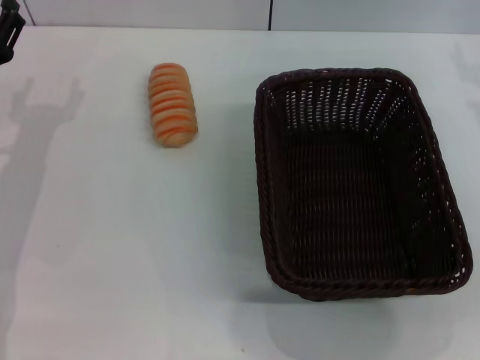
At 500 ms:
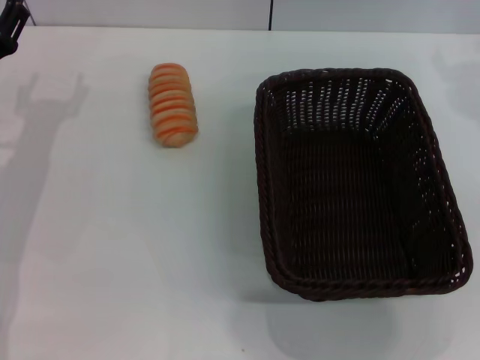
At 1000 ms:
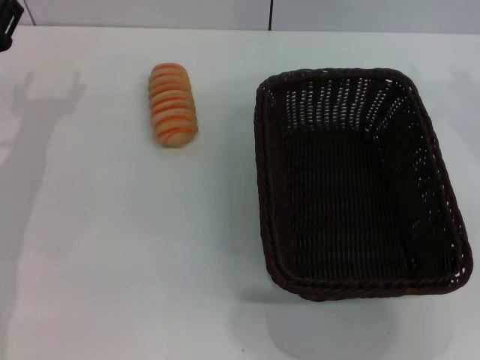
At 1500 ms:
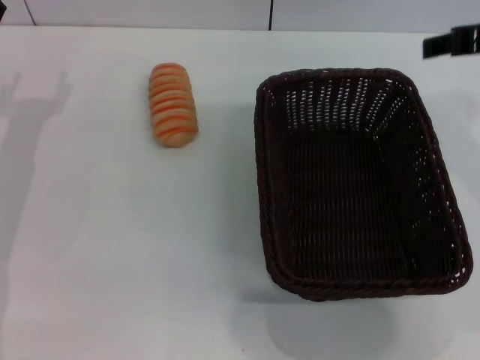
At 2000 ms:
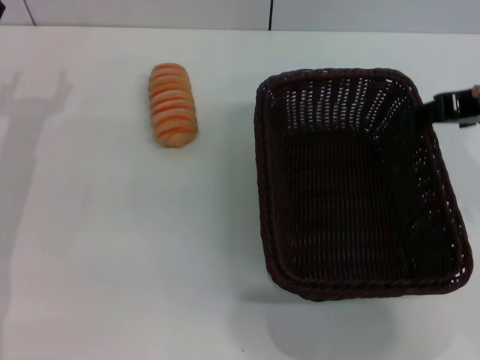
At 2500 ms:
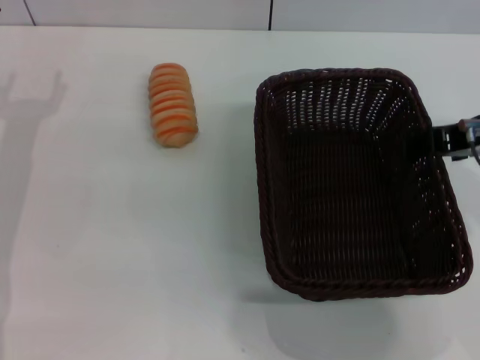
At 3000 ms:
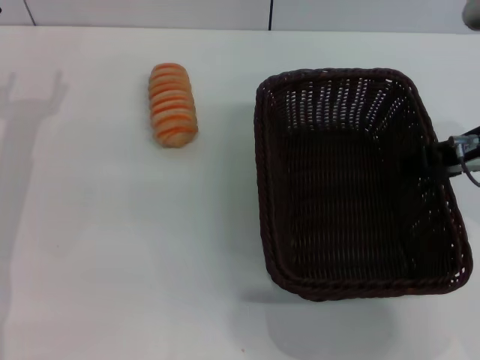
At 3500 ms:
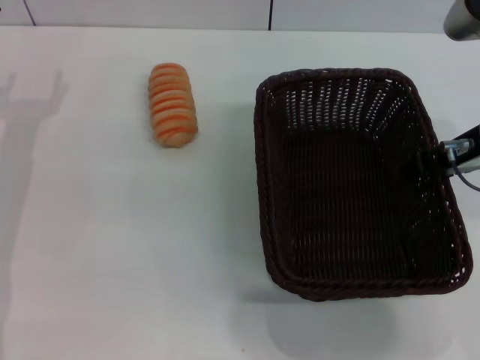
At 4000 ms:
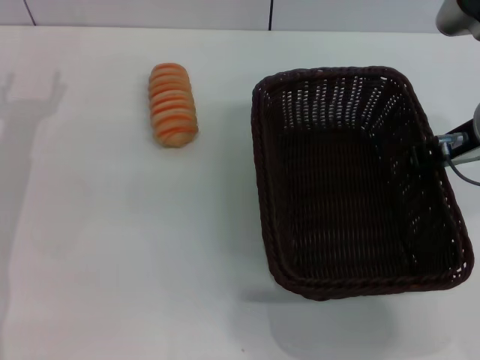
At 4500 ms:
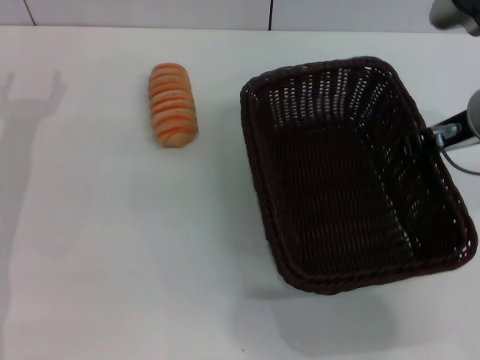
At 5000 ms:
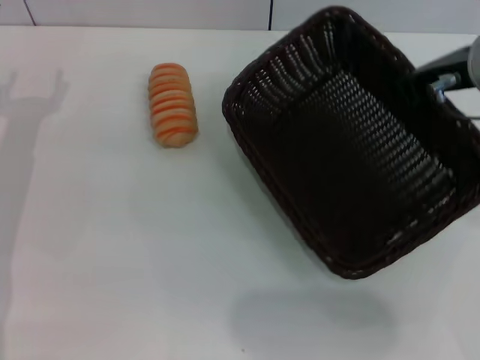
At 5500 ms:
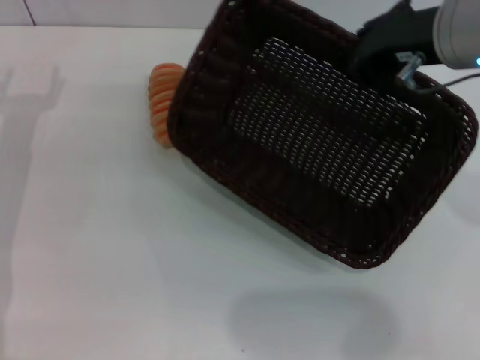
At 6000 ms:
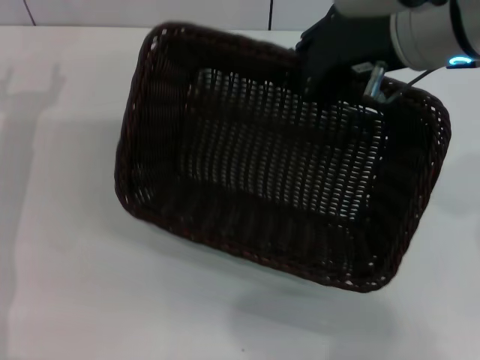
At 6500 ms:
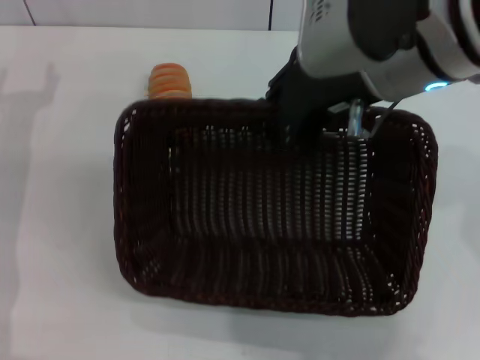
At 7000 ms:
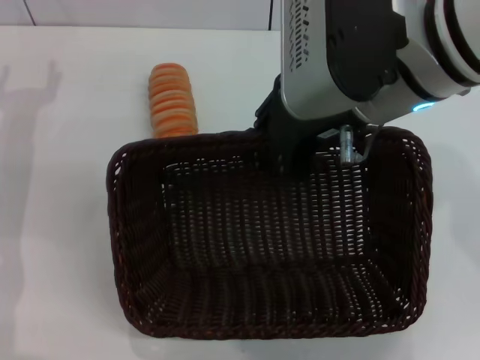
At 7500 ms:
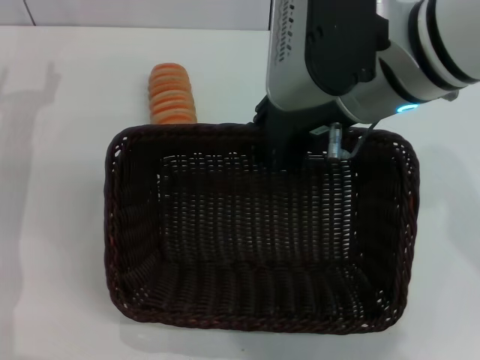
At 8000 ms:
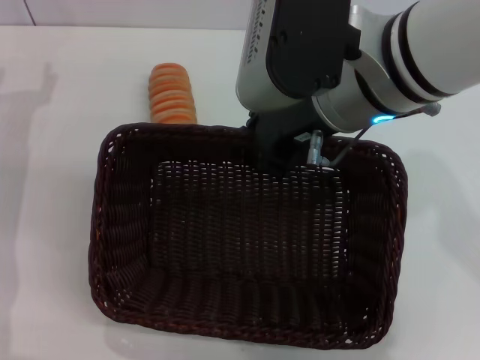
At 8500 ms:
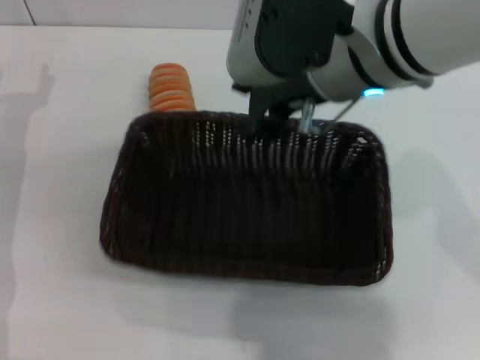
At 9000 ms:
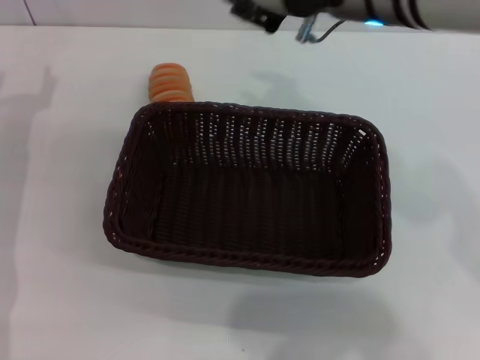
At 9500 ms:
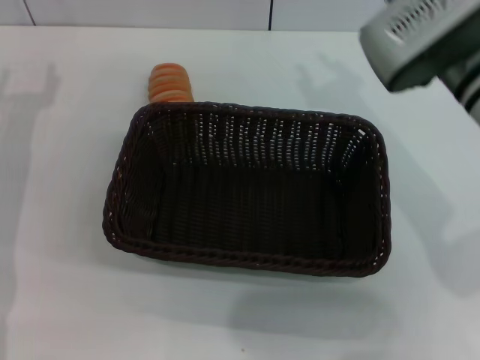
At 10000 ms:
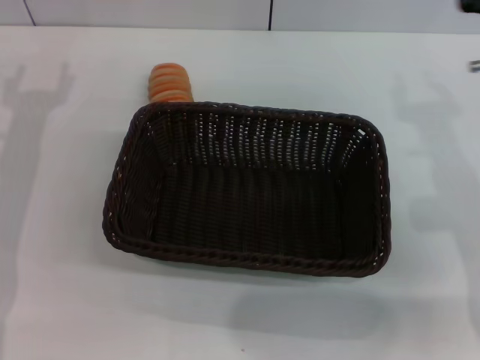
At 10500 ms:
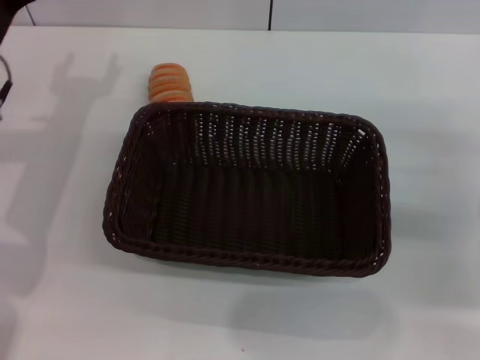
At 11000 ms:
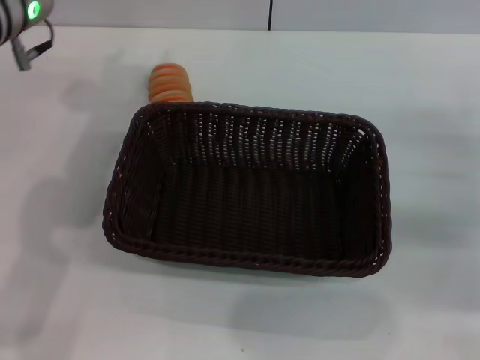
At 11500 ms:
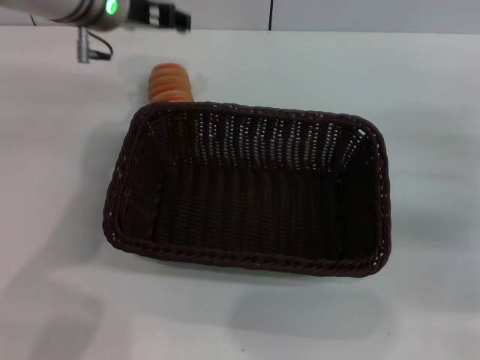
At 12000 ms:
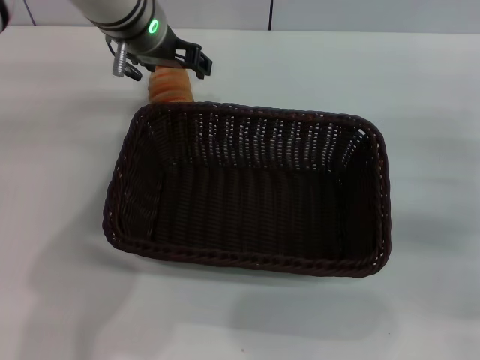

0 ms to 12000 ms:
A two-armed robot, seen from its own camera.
Step, 0 ms to 4500 ms: Pick up the dark basket with the right gripper.
Step, 5000 ms to 9000 ms: Place the dark basket in the center of view with the right gripper.
0 ms to 2000 ms: The right gripper moves to the left and backward, roughly 10 cm.
2000 ms to 4000 ms: The right gripper changes place by about 5 cm, and closes.
4000 ms to 6000 ms: The right gripper heads upward and to the left, covering roughly 10 cm.
6000 ms to 8000 ms: The right gripper shifts some 5 cm to the left.
8000 ms to 10000 ms: The right gripper heads to the right and downward, covering some 20 cm, and opens.
10000 ms to 12000 ms: The right gripper is displaced to the right and downward by approximately 10 cm. Meanwhile the left gripper shifts about 25 cm to the right, forward and upward.

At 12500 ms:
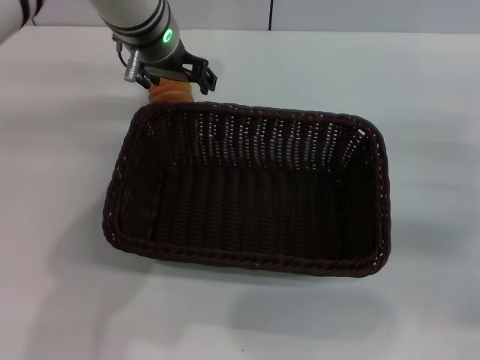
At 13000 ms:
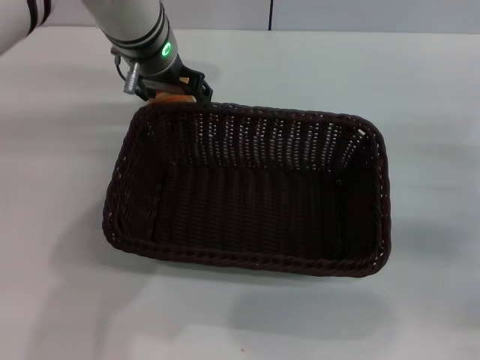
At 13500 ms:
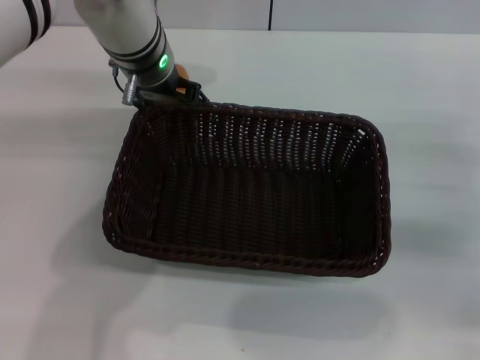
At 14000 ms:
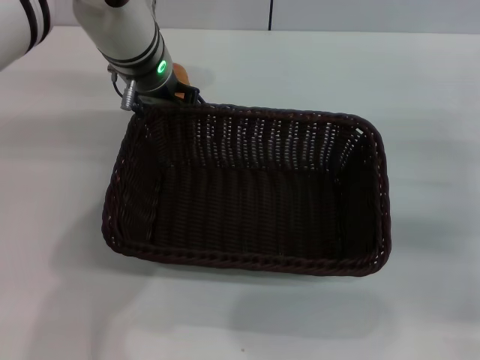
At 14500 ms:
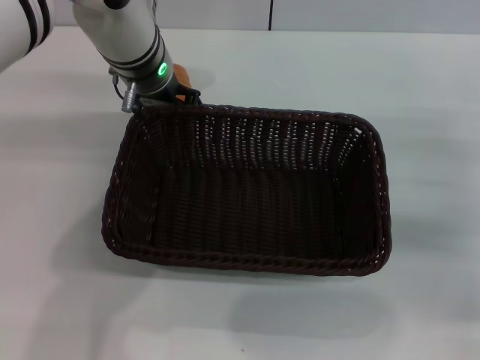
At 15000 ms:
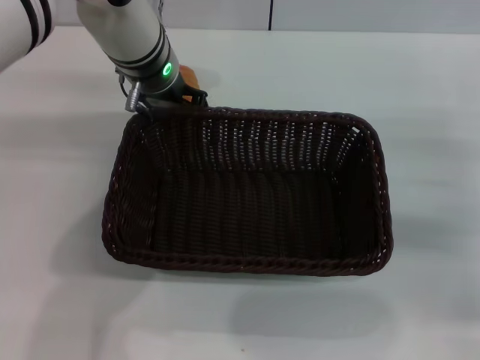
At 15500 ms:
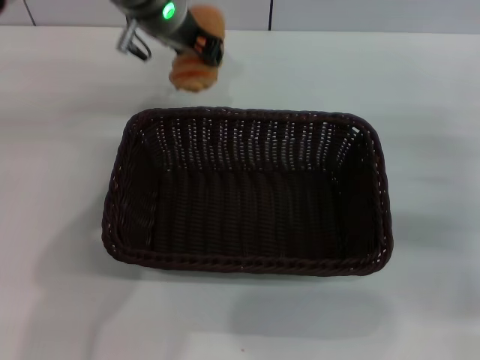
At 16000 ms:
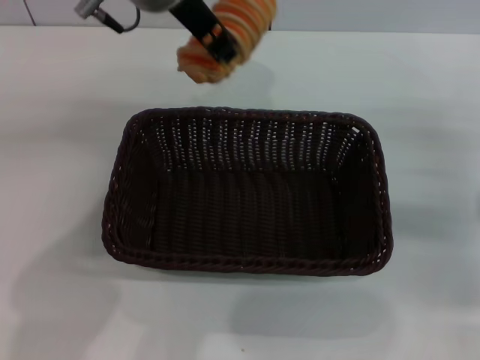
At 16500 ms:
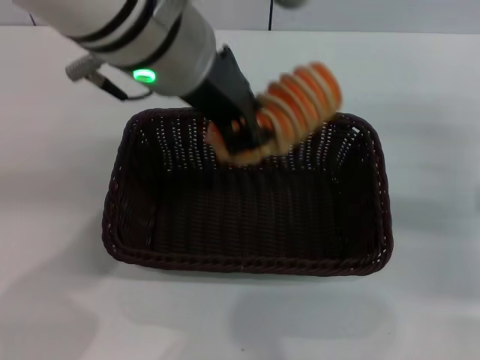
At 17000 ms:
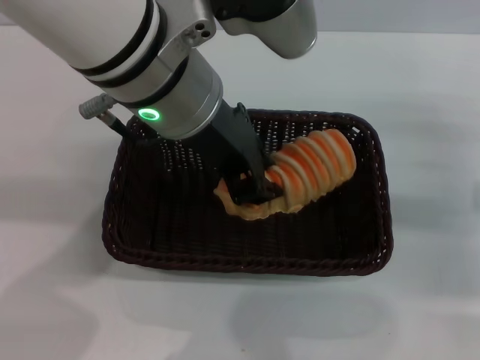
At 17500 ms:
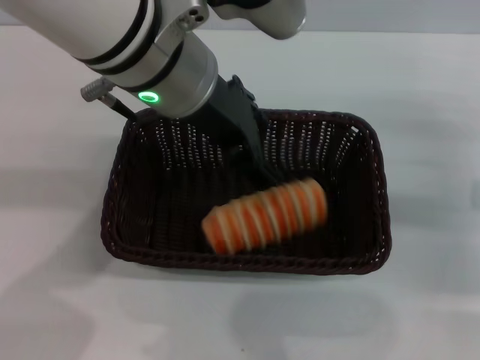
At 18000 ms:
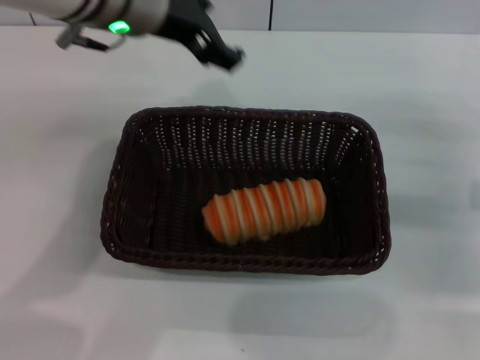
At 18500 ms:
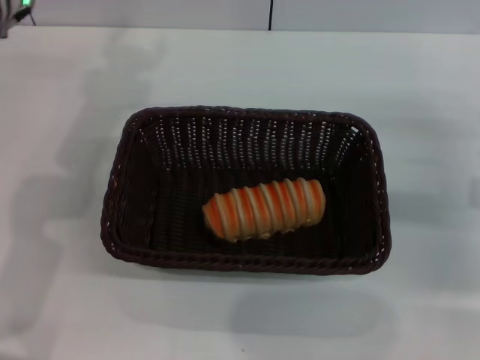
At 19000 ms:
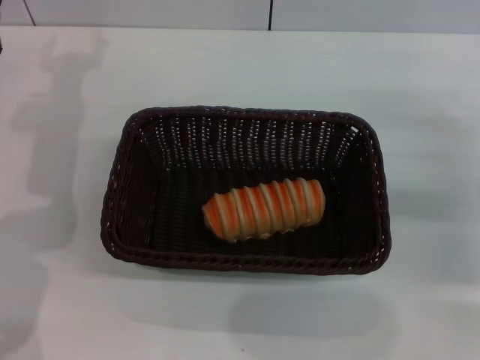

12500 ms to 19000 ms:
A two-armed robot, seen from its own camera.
Step, 12500 ms to 15500 ms: Pick up the long bread with the left gripper.
Step, 16000 ms to 17000 ms: Place the long bread into the dark basket with the left gripper.
12500 ms to 14500 ms: The grippers make only small movements.
14500 ms to 17000 ms: The left gripper heads backward and upward, covering approximately 20 cm, and closes up.
17000 ms to 19000 ms: The left gripper is displaced to the left, downward and forward by roughly 25 cm, and opens up.
